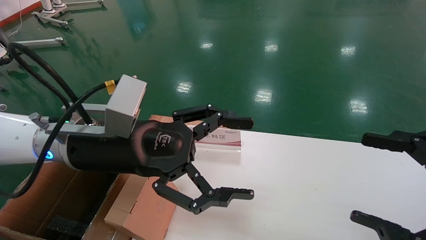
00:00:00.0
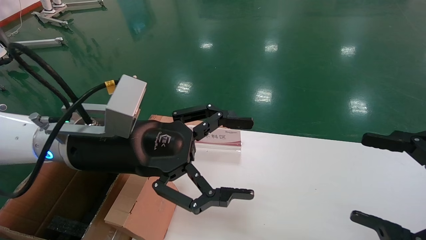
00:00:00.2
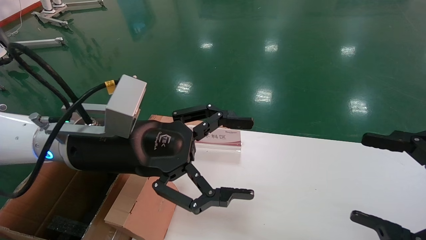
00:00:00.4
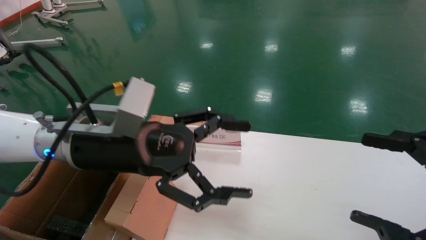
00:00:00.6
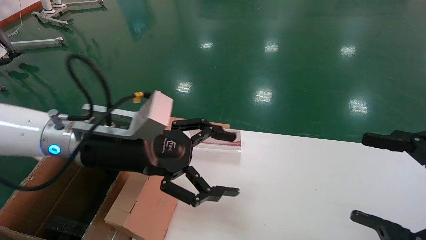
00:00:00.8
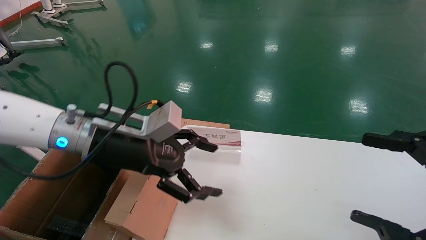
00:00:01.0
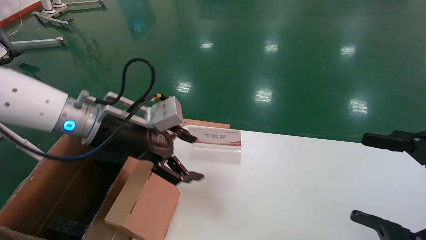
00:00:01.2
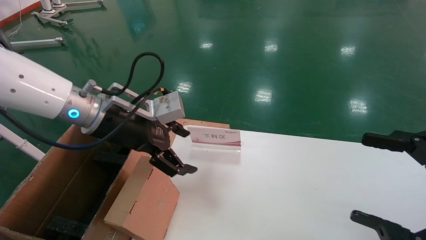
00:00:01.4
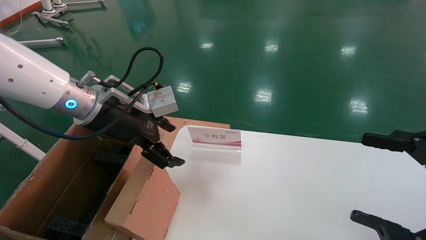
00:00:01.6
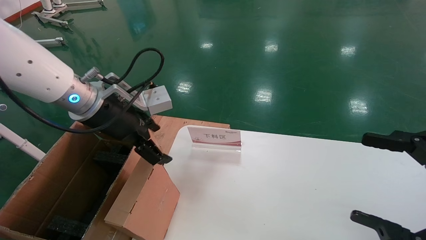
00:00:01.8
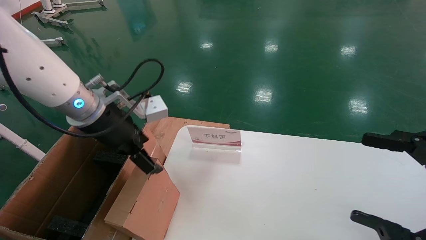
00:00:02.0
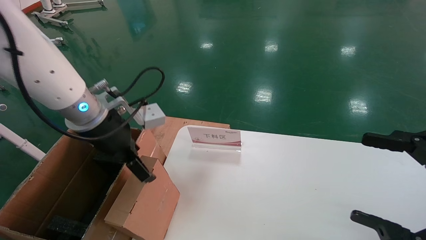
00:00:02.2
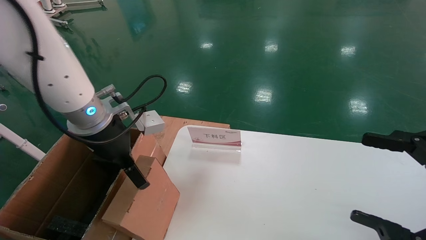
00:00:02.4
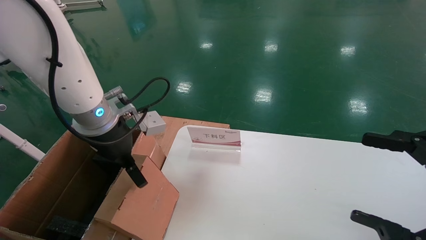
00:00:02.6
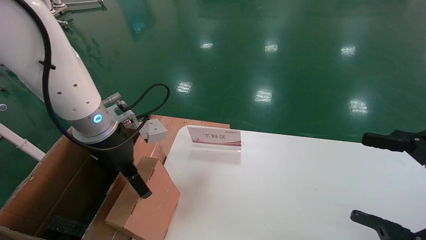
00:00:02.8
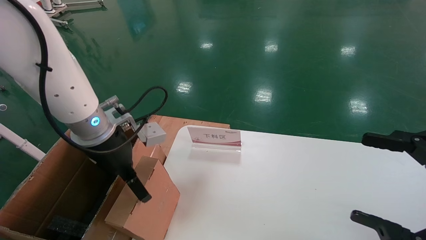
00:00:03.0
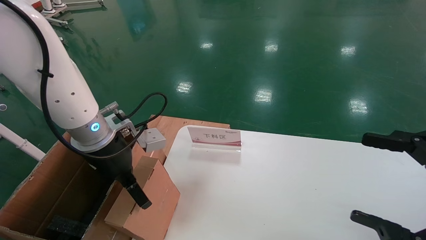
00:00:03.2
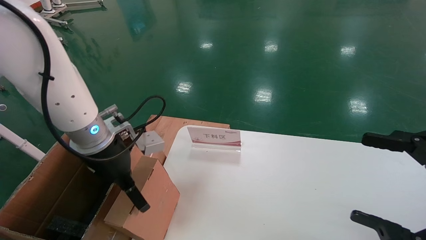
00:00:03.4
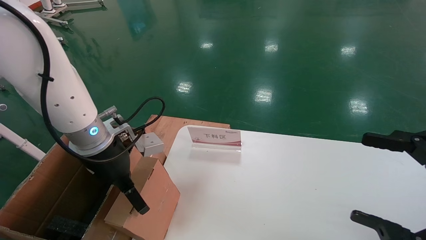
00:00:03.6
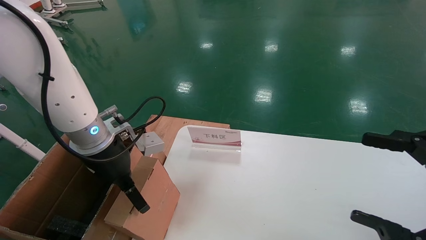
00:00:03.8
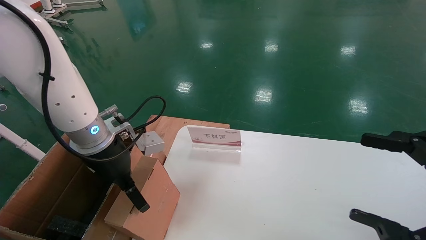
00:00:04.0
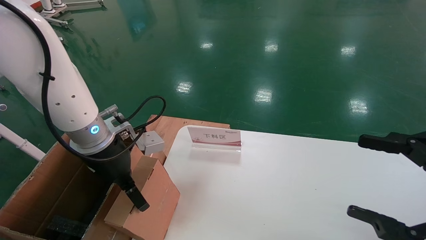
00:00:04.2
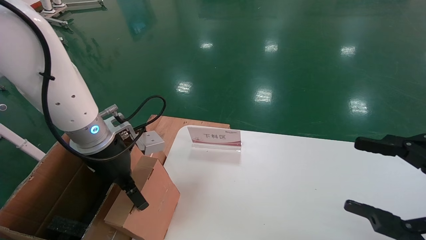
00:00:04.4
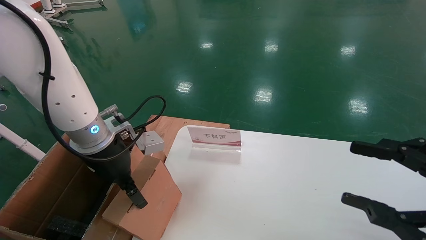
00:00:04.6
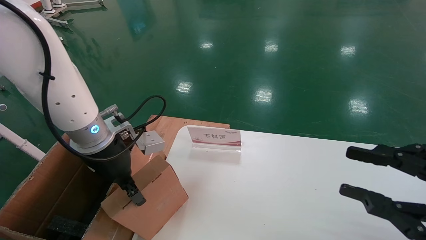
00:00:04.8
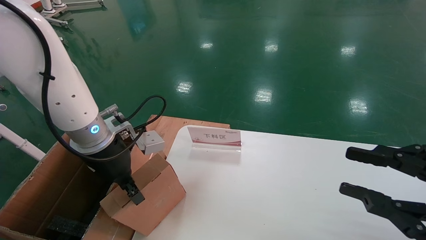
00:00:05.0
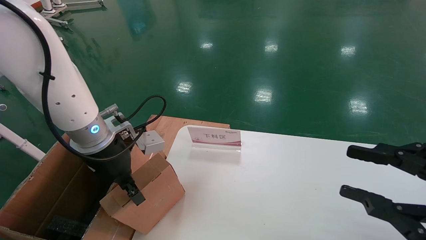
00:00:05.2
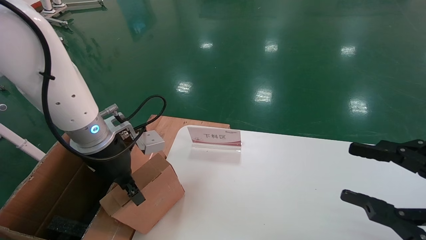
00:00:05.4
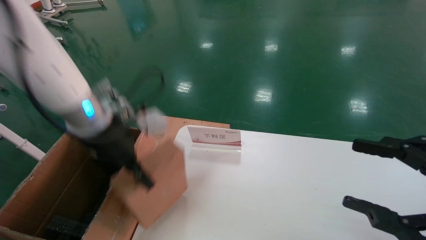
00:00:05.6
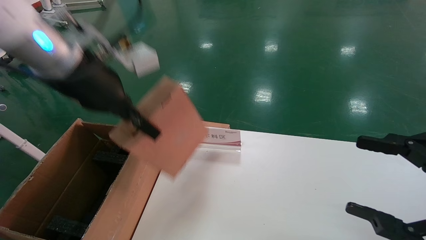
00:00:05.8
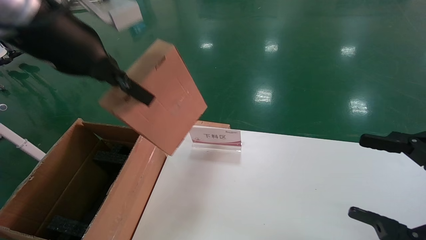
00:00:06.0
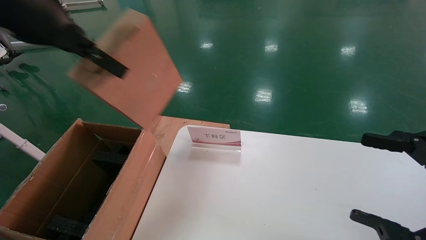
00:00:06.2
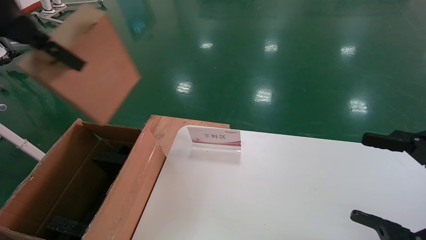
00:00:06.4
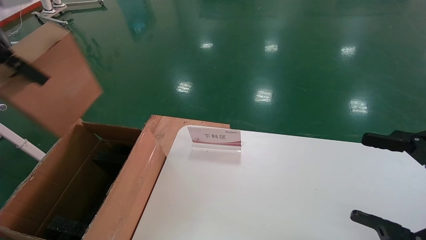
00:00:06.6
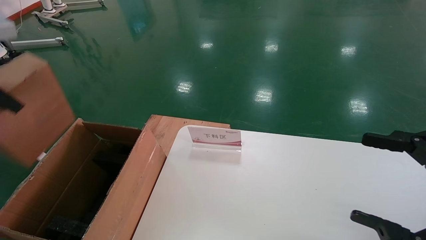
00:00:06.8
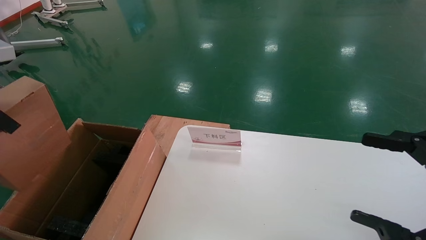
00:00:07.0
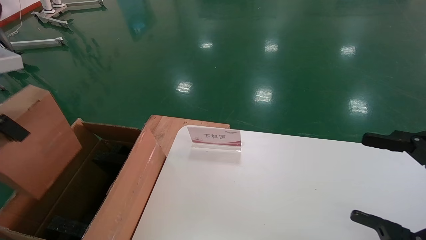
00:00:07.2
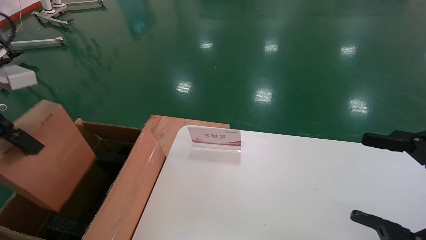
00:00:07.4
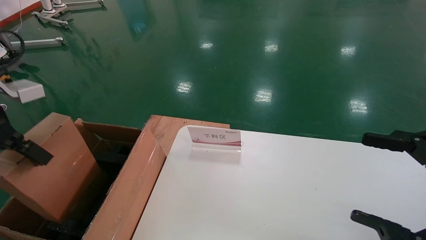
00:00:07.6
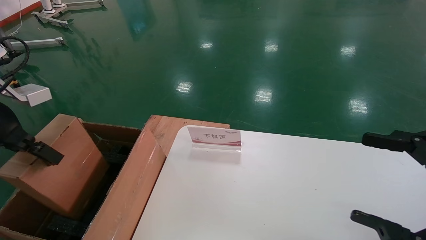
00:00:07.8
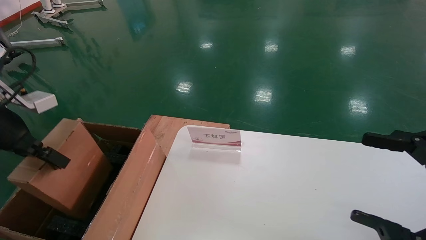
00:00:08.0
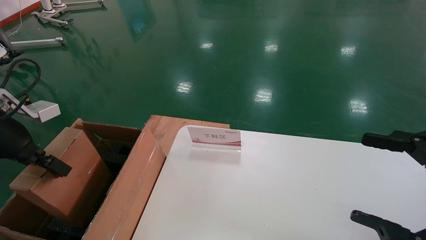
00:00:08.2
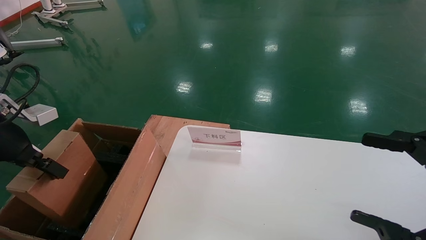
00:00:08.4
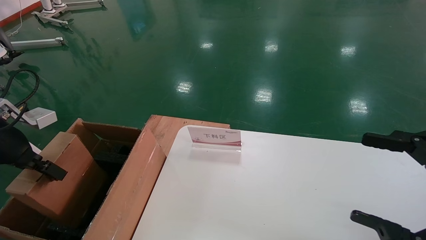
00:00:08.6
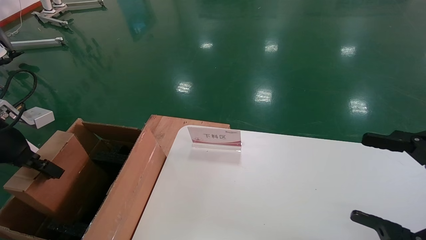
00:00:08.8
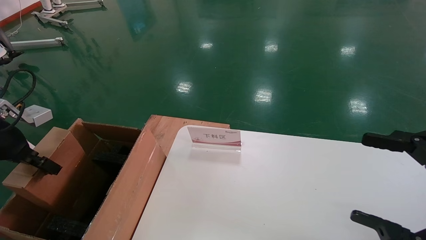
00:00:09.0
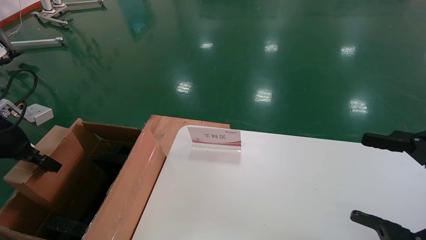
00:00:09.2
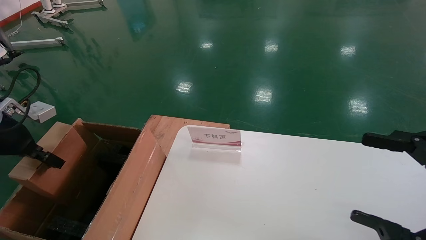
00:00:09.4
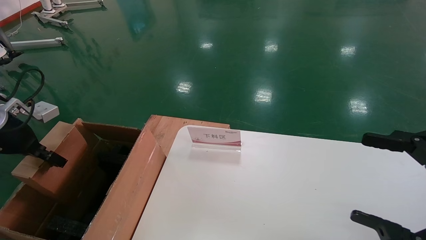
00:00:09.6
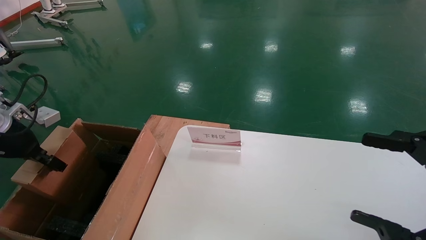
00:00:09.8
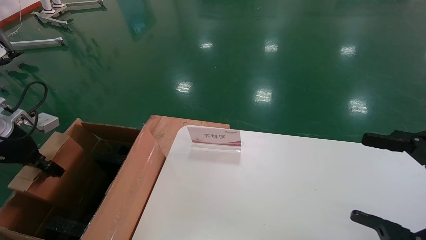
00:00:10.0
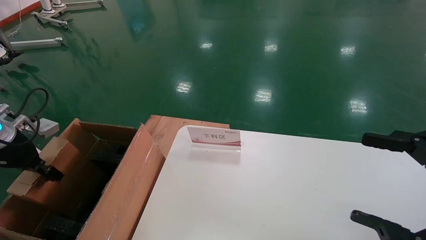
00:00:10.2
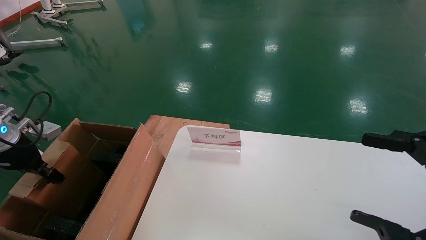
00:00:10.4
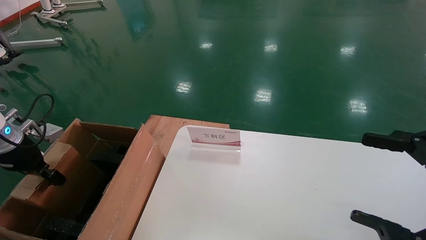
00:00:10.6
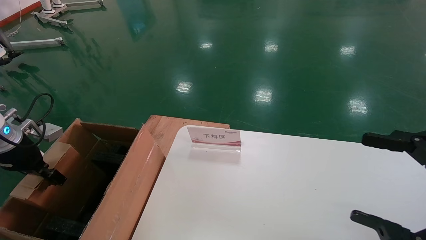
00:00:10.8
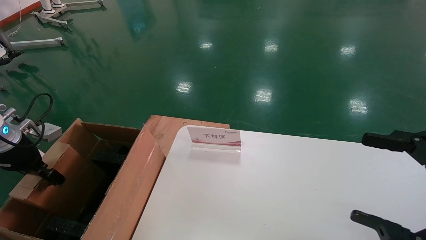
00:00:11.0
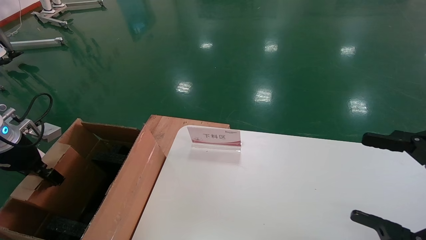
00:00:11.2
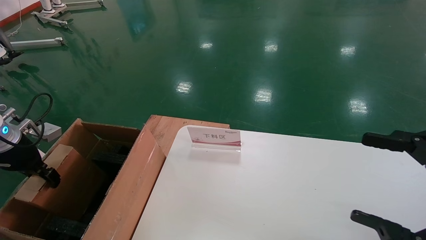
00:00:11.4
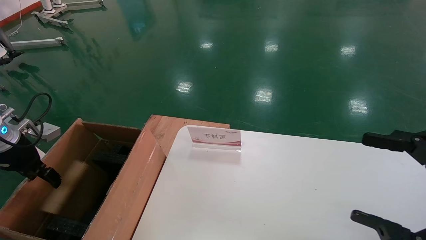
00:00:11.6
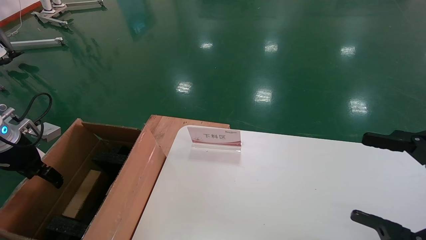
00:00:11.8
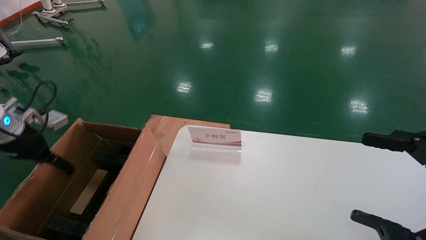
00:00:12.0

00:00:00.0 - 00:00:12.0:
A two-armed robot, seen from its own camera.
Task of the whole recording: pick up the small cardboard box and load it into the large cardboard box.
Step, 00:00:01.4 - 00:00:05.2: Pick up the mouse and power cord box.
Step, 00:00:05.4 - 00:00:11.8: Place the mouse and power cord box into the case.
00:00:00.0 - 00:00:01.6: The left gripper travels forward by approximately 5 cm.
00:00:03.0 - 00:00:04.4: The grippers make only small movements.
00:00:04.4 - 00:00:06.0: The left gripper goes approximately 20 cm upward, and closes; the right gripper closes, then opens again.
00:00:06.0 - 00:00:07.6: The left gripper travels to the left and downward by approximately 20 cm.
00:00:07.6 - 00:00:09.0: The left gripper is displaced downward and to the left by roughly 10 cm.
00:00:09.0 - 00:00:10.4: The left gripper goes approximately 5 cm downward.
00:00:10.4 - 00:00:12.0: The left gripper opens.

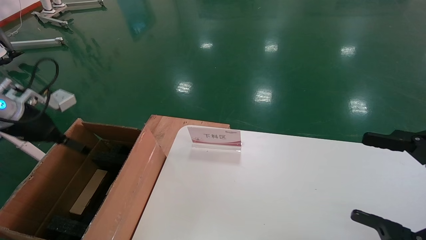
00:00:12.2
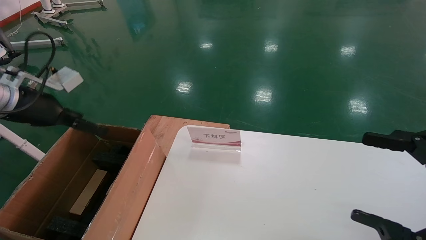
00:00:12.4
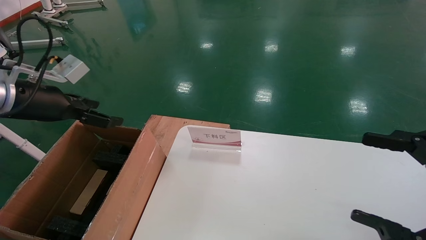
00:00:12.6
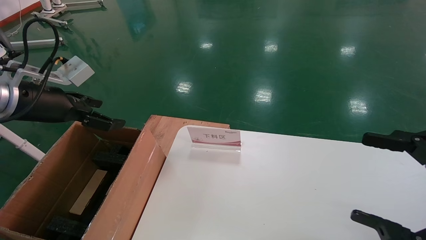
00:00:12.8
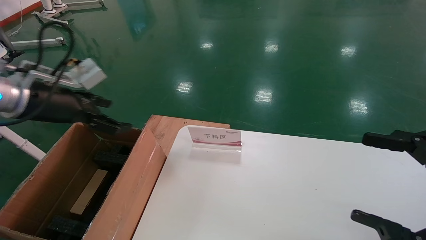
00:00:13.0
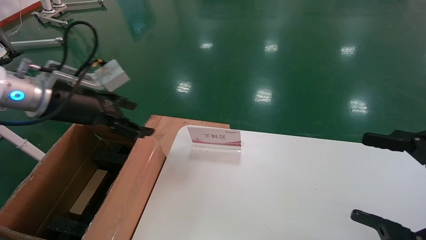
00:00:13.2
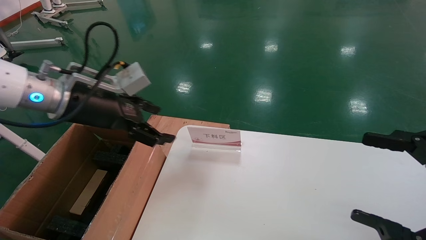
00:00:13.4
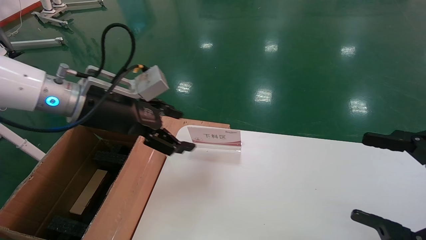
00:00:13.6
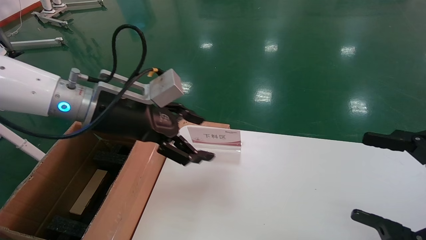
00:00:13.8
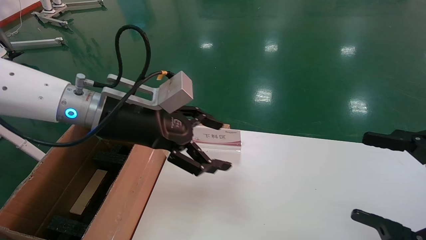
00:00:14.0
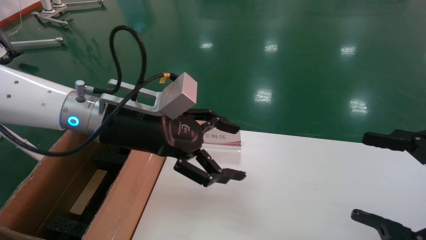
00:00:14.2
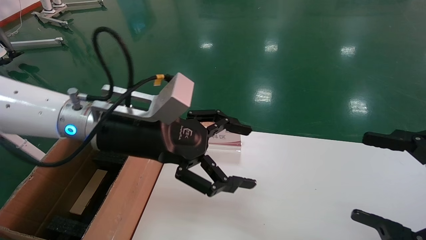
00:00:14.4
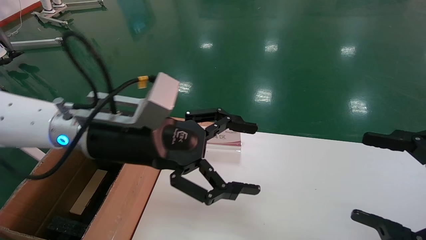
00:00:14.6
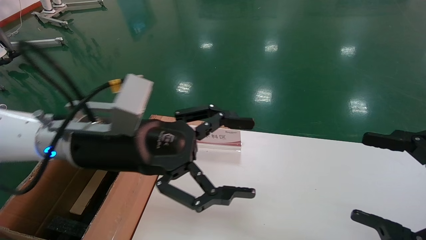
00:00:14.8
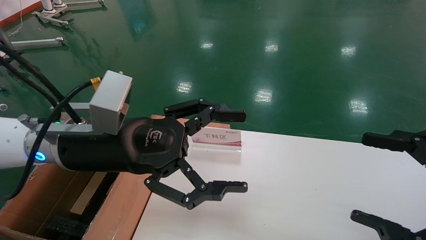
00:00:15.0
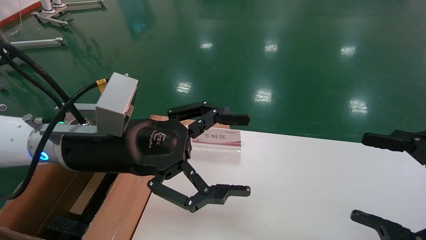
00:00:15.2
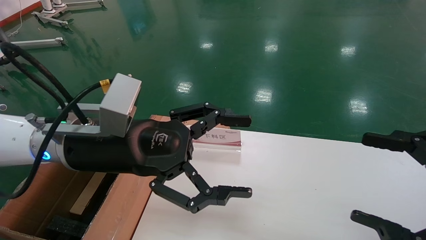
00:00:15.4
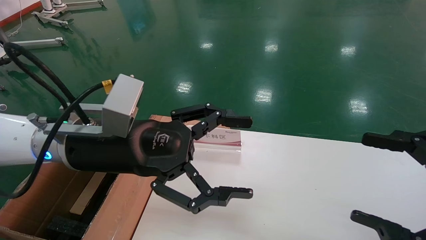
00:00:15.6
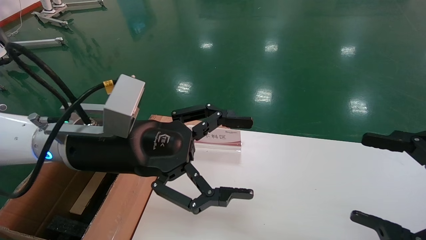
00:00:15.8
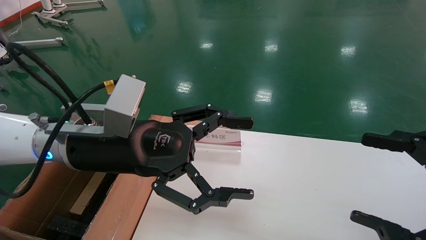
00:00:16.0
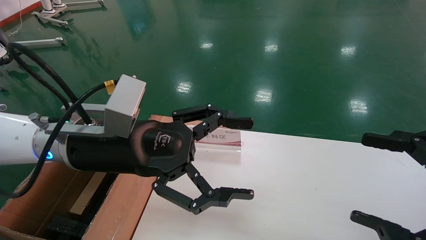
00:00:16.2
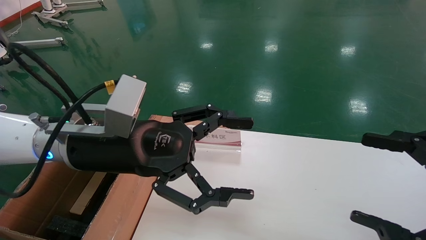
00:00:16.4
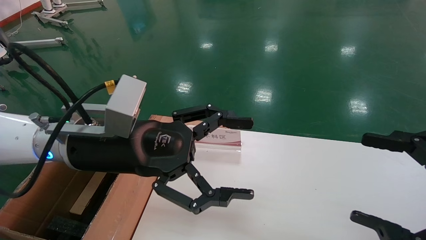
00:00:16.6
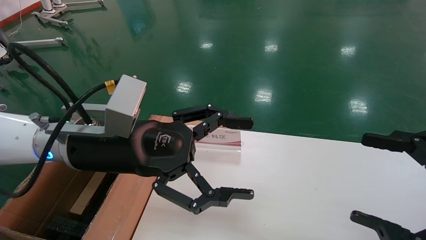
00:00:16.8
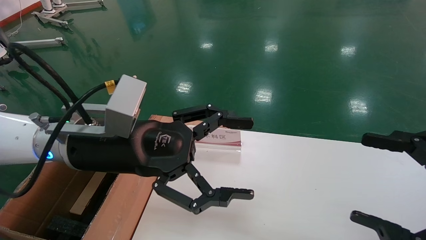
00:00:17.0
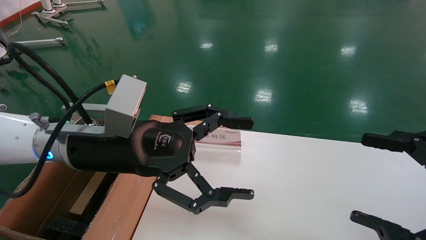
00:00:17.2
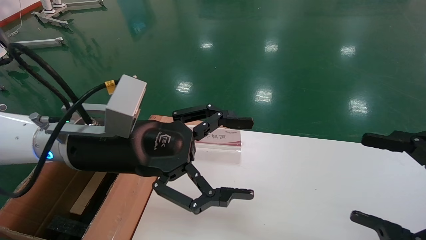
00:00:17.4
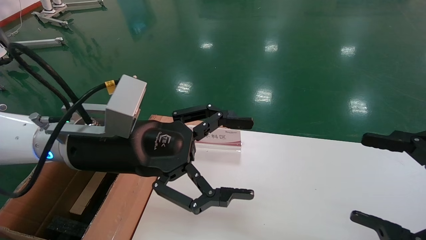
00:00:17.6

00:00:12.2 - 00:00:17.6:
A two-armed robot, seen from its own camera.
Task of the whole recording: pick up the small cardboard box and load it into the large cardboard box.
00:00:12.2 - 00:00:13.6: The left gripper is displaced to the right by about 20 cm.
00:00:13.6 - 00:00:15.0: The left gripper heads to the right and backward, covering approximately 10 cm.
00:00:15.0 - 00:00:17.6: Both grippers stay about where they are.
